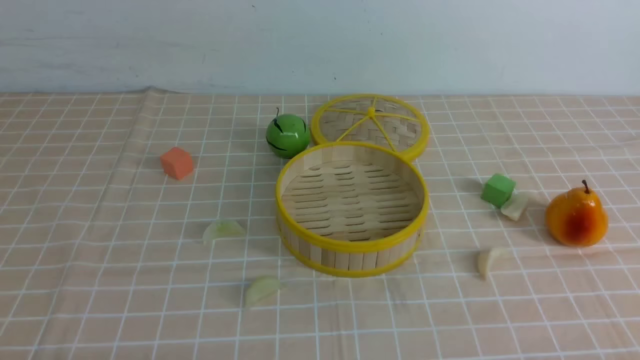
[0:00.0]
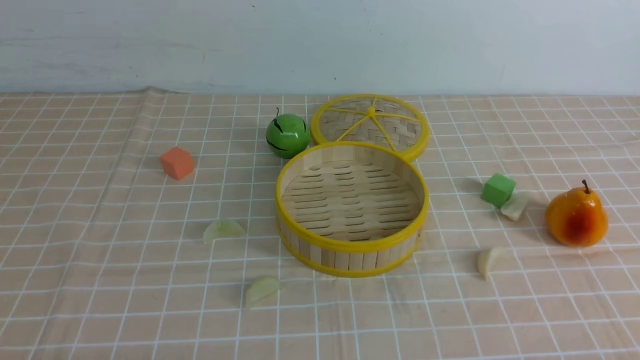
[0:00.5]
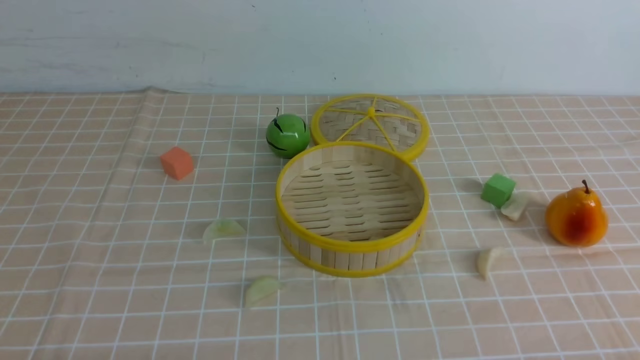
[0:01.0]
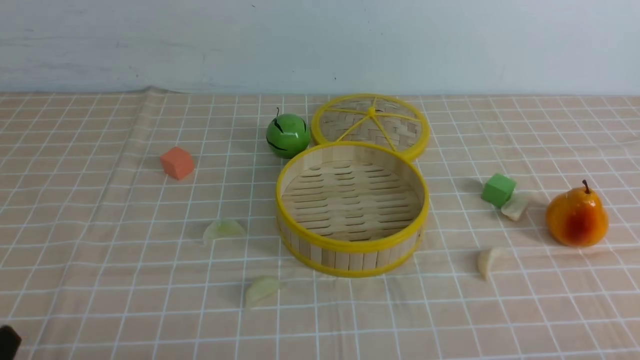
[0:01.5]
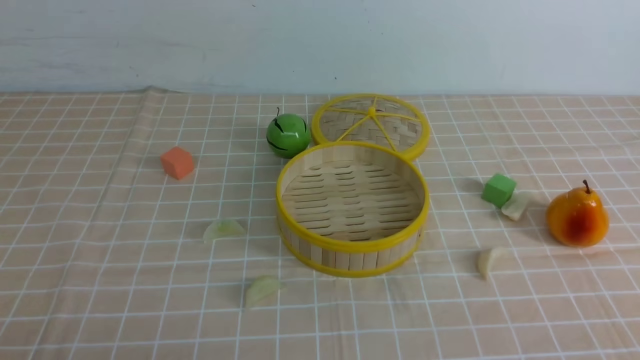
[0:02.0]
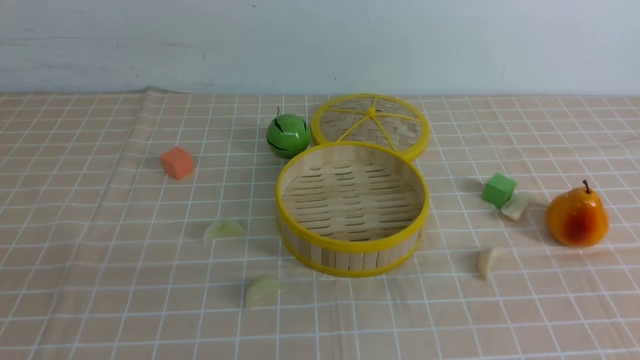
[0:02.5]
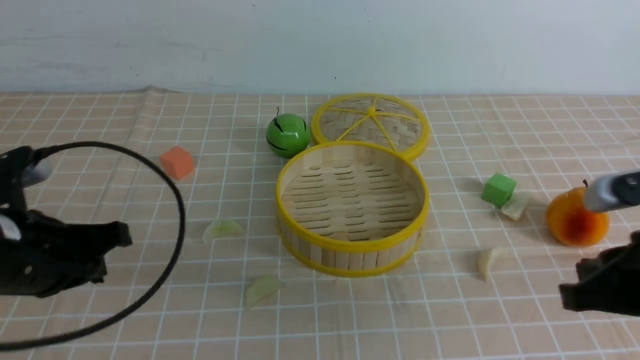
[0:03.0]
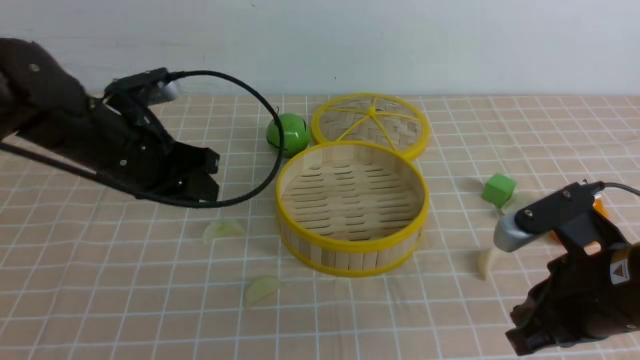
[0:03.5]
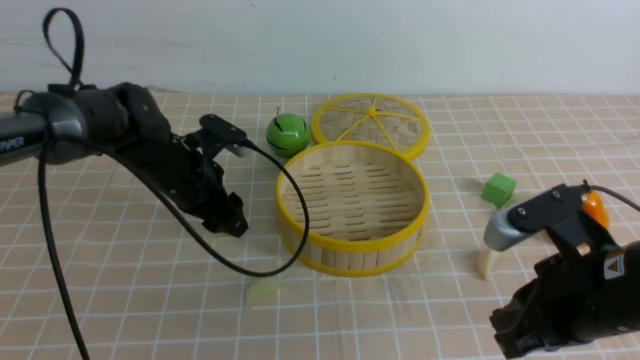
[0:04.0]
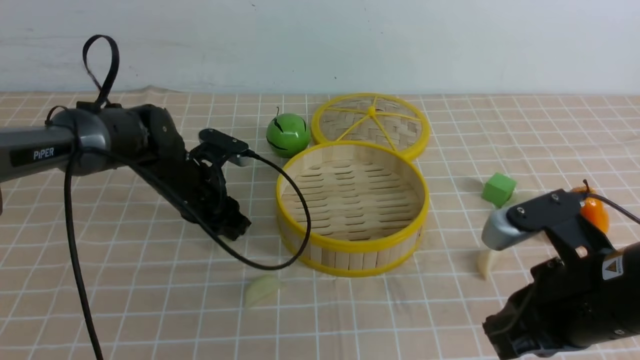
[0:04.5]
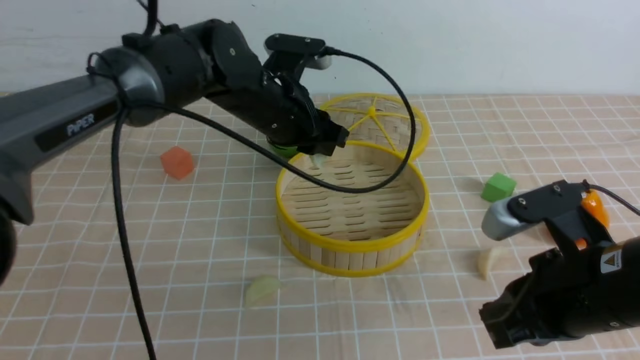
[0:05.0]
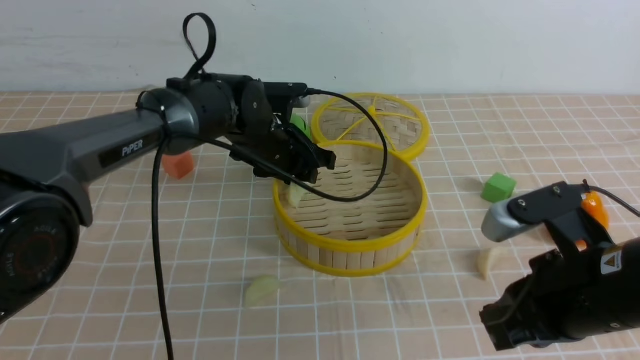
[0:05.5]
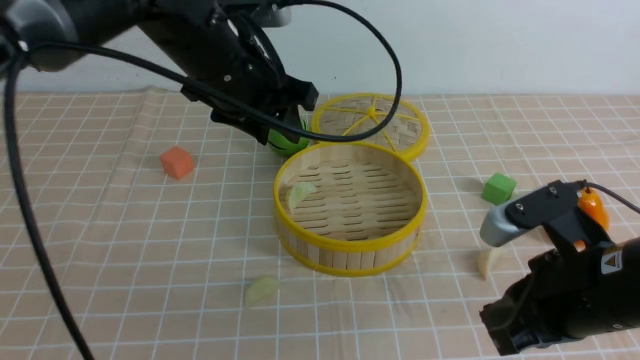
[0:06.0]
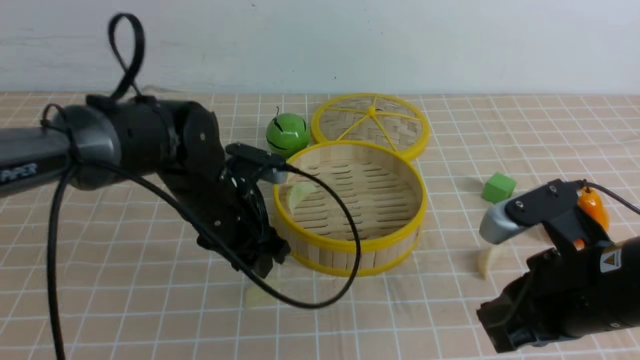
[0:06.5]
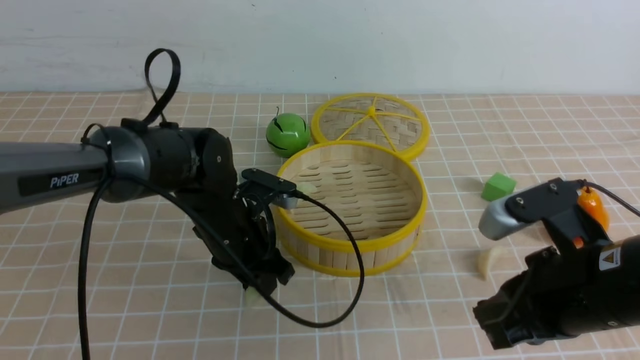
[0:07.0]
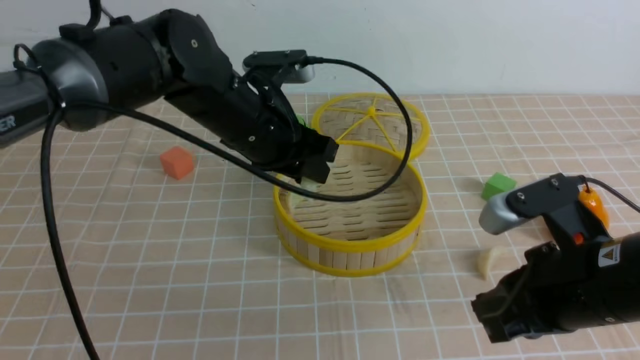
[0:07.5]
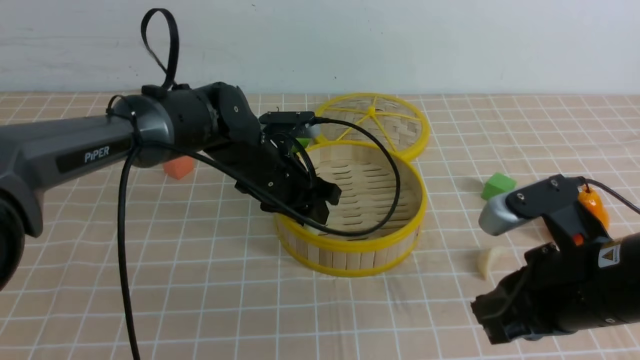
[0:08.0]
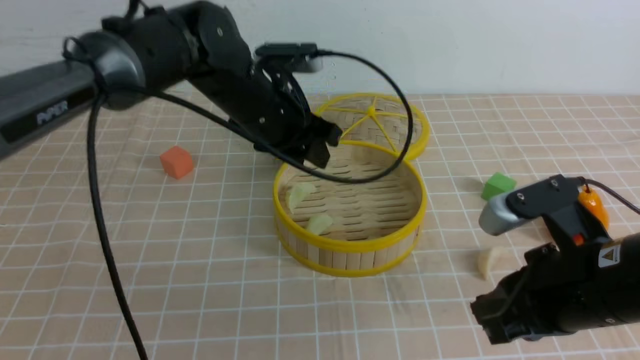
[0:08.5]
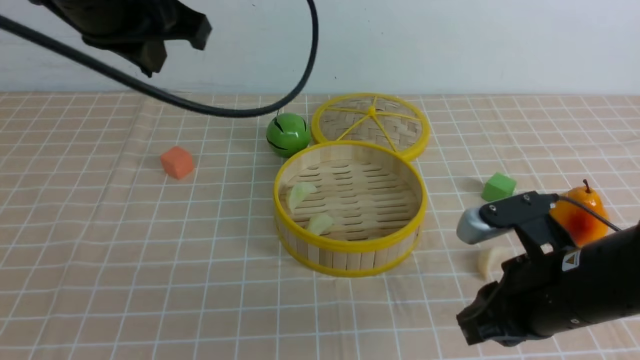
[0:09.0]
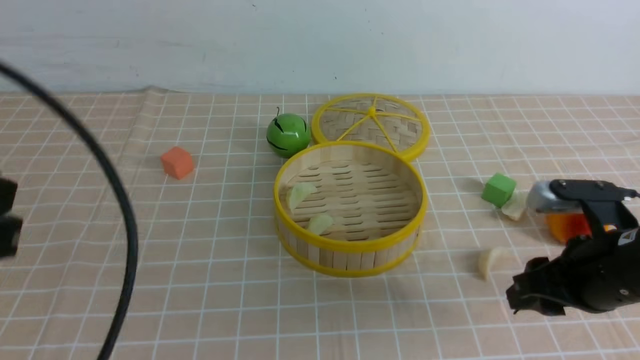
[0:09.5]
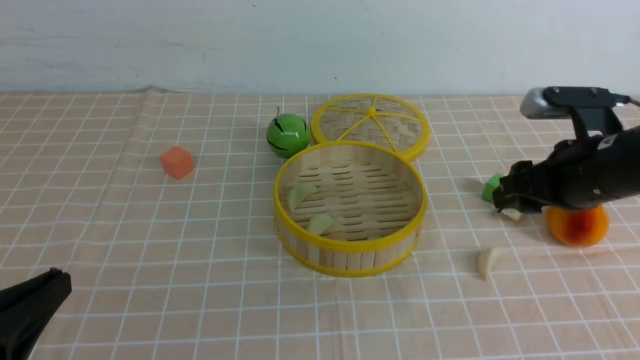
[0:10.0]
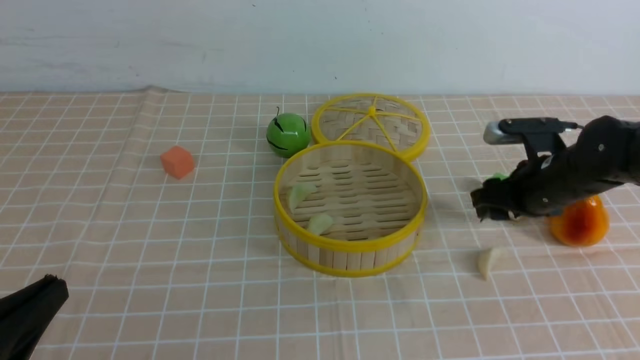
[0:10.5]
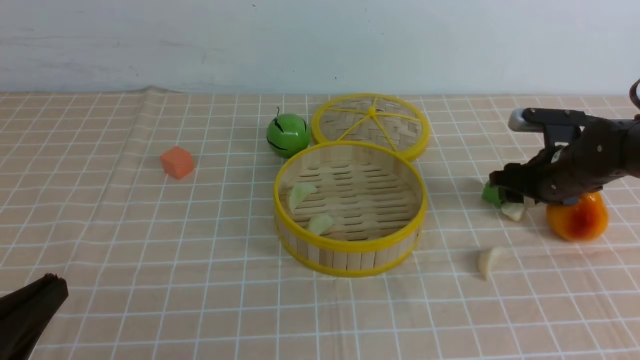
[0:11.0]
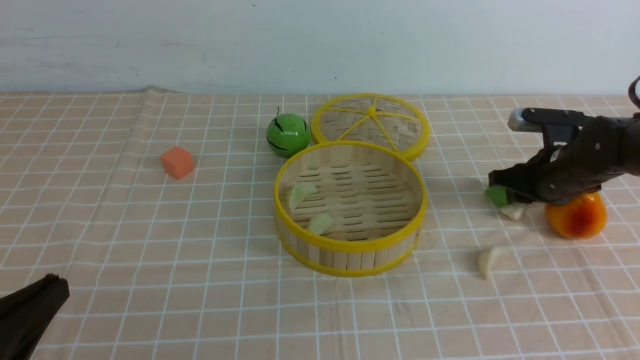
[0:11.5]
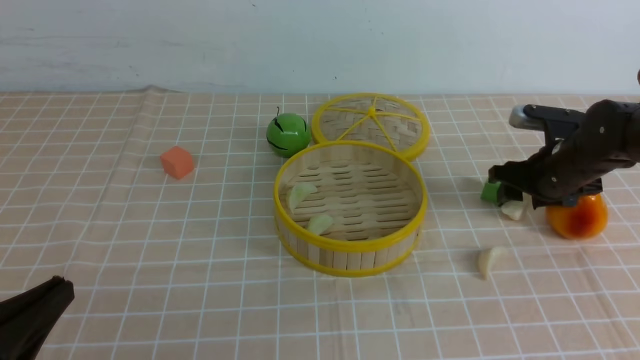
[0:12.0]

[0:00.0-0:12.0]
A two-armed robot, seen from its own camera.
Task of the whole recording: put the dumplings into the steamer on the table with the brown tablecloth.
Step, 0:00.0 to 0:04.0: use the left arm to grab a dumpling.
Step, 0:04.5 to 0:05.5: use the left arm to put the dumpling into the steamer.
Step, 0:06.0 to 0:06.5: use the left arm to grab a dumpling.
Step, 0:07.0 to 0:08.0: use the left arm to put the dumpling into the steamer.
0:02.0 to 0:04.0: The right gripper heads forward and to the left, covering approximately 20 cm, while the left gripper goes roughly 35 cm forward, and opens up.
0:04.0 to 0:06.0: The left gripper heads upward and to the right, covering some 15 cm, and closes, then reopens.
0:06.0 to 0:08.0: The left gripper swings up and down, some 15 cm each way, with 2 reversals.
0:08.0 to 0:10.0: The right gripper travels forward and to the right by approximately 15 cm, and opens its fingers; the left gripper travels backward and to the left by about 35 cm, and closes.
0:10.0 to 0:12.0: The right gripper is displaced forward and downward by roughly 10 cm.

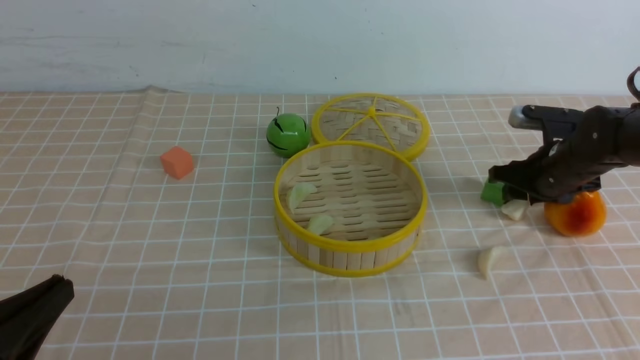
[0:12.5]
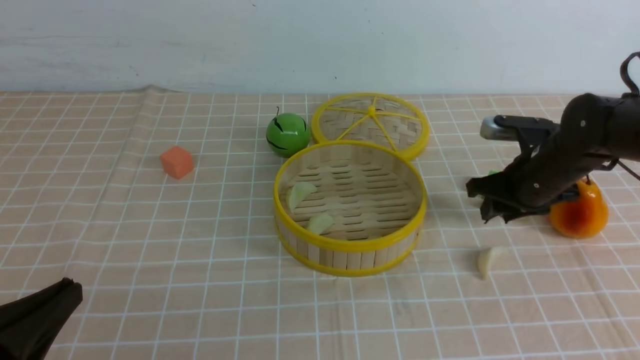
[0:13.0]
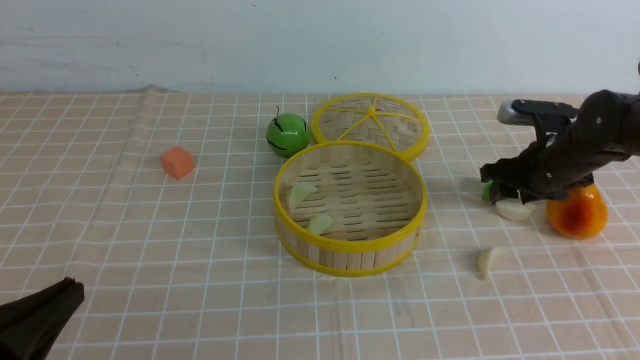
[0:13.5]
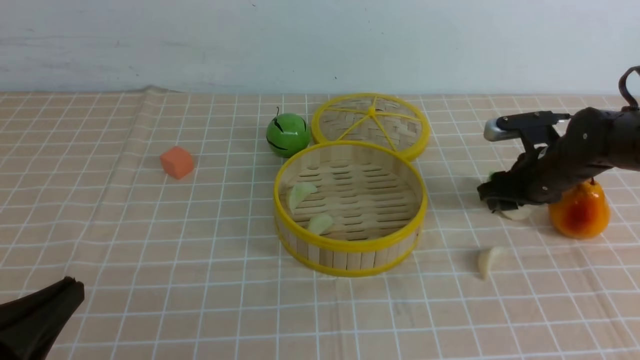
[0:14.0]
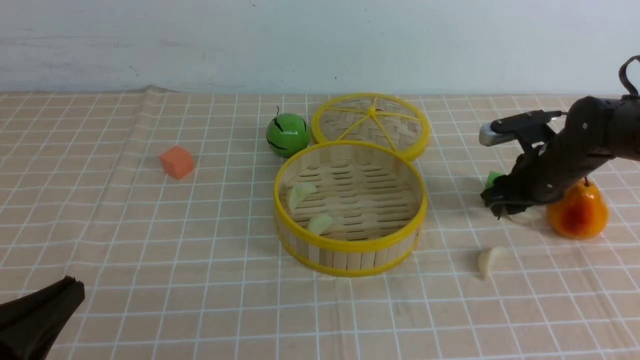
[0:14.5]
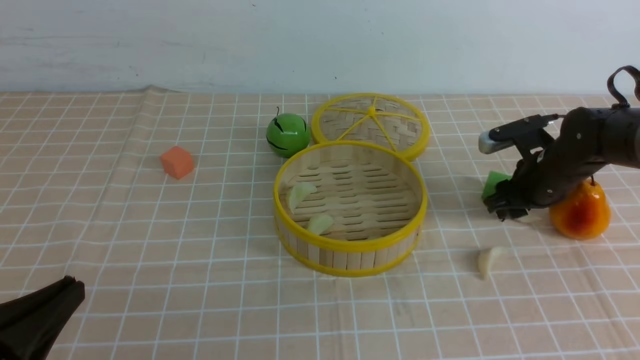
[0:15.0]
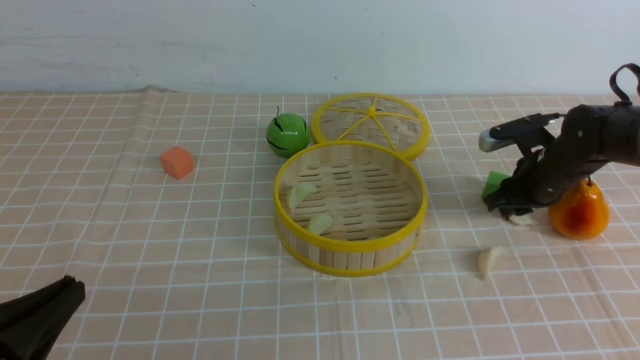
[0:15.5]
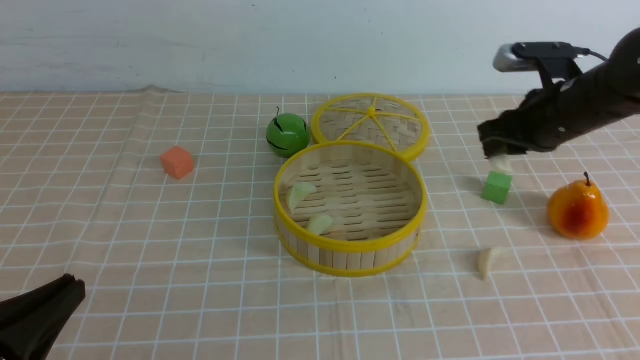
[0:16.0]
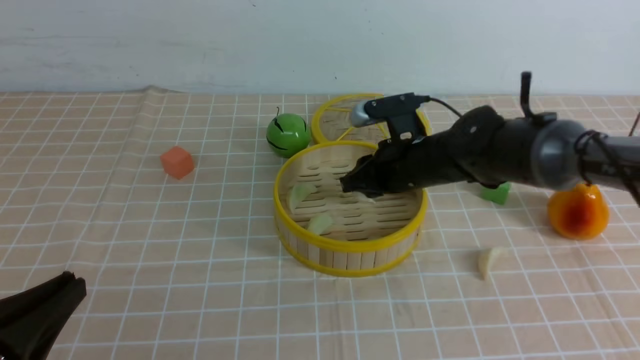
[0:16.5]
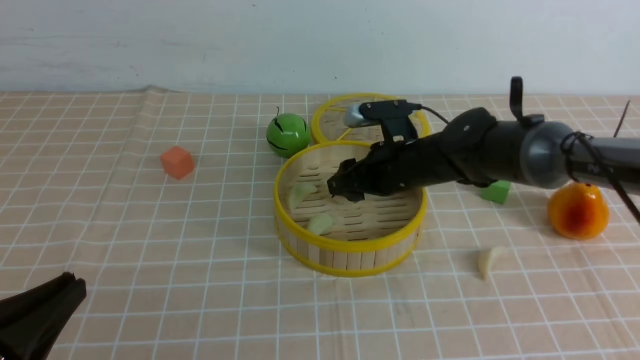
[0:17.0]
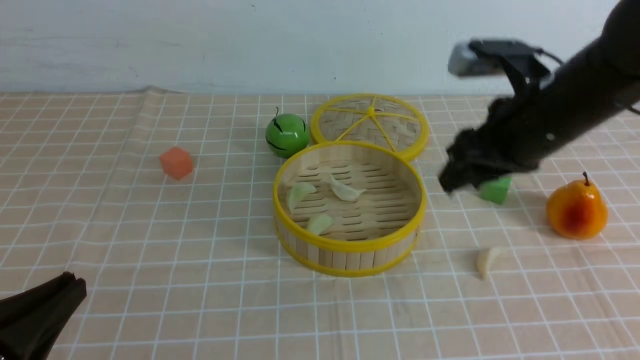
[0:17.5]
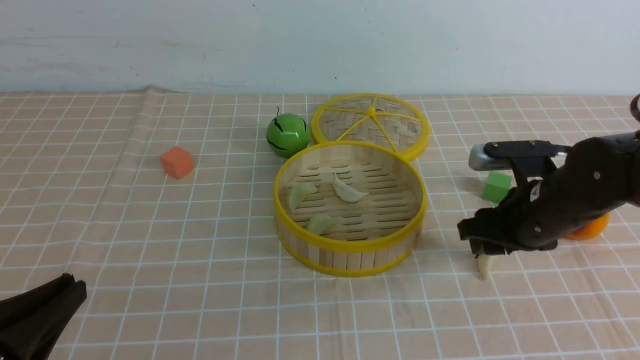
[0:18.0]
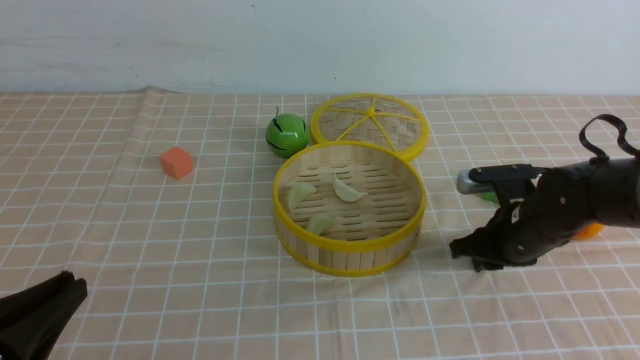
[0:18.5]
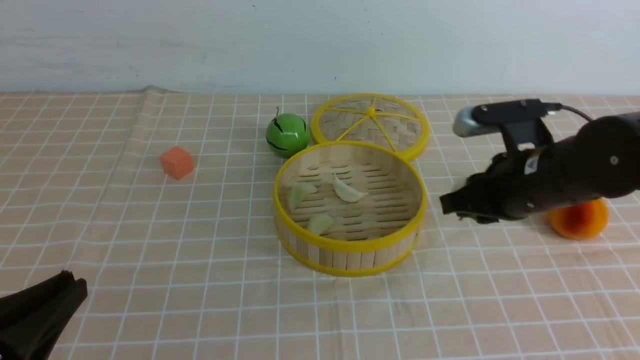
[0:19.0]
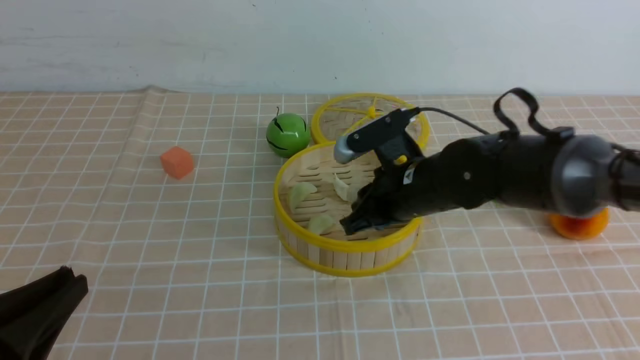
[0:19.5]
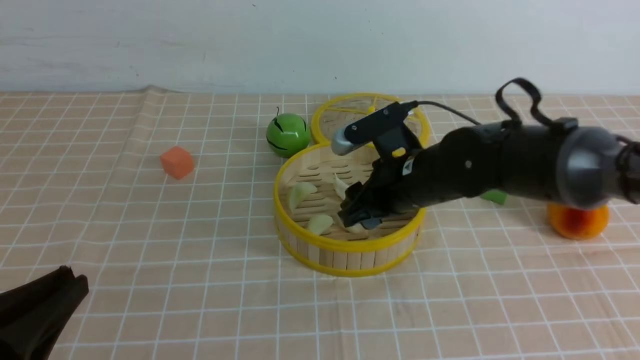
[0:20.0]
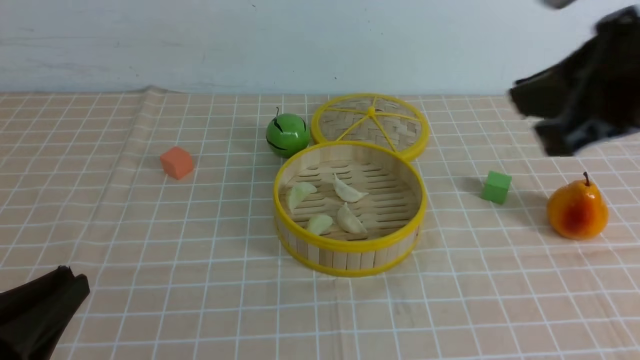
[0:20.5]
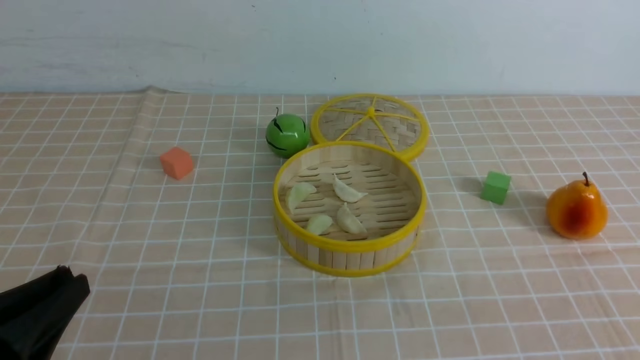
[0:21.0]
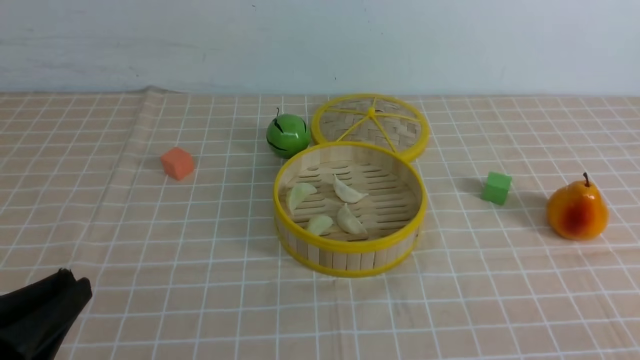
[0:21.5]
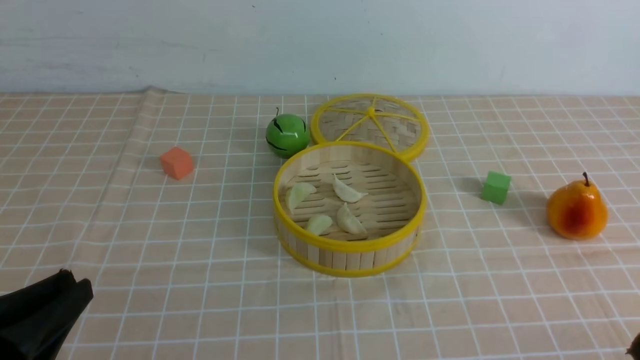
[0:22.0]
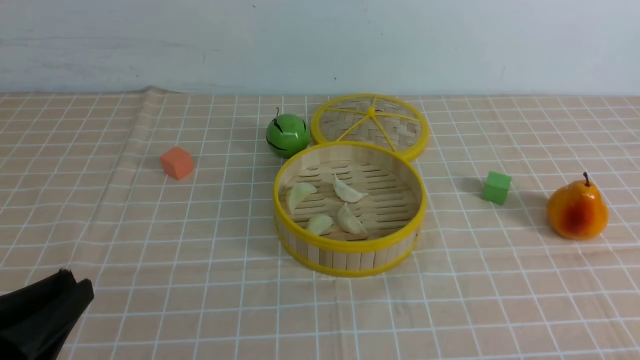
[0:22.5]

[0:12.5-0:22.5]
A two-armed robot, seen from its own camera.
Task of the whole recording: put the dumplings into the steamer on the table with the brown tablecloth.
Step, 0:12.5 to 0:15.0: use the right arm to grab a dumpling.
Step, 0:16.0 to 0:17.0: use the right arm to put the dumpling into the steamer.
Step, 0:17.5 to 0:18.5: use the right arm to grab a dumpling.
Step, 0:19.0 to 0:20.0: use the right arm to put the dumpling into the steamer.
0:14.5 to 0:16.5: The right gripper travels to the left by some 15 cm, and closes up.
0:16.5 to 0:18.5: The right gripper heads to the right and backward, covering about 15 cm, and opens, then closes once more.
0:18.5 to 0:20.5: The right gripper heads upward and backward, covering about 30 cm.
0:20.5 to 0:22.5: The right gripper goes about 30 cm downward, backward and to the right.
